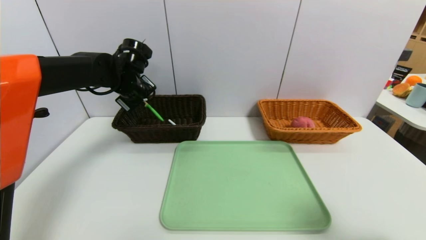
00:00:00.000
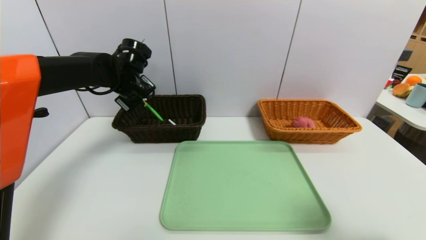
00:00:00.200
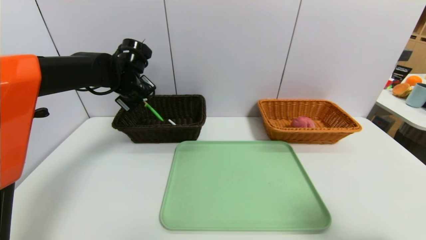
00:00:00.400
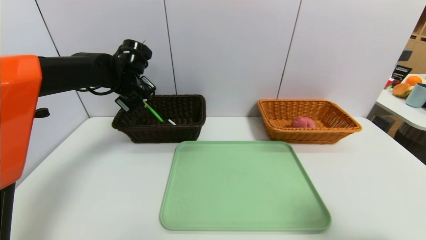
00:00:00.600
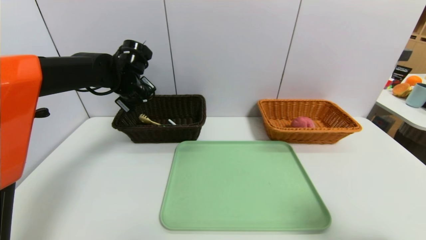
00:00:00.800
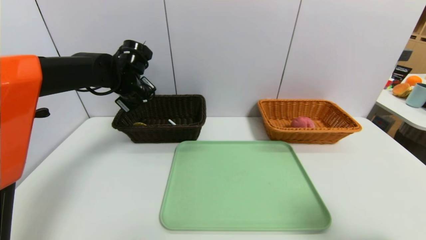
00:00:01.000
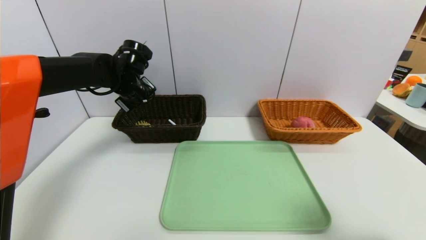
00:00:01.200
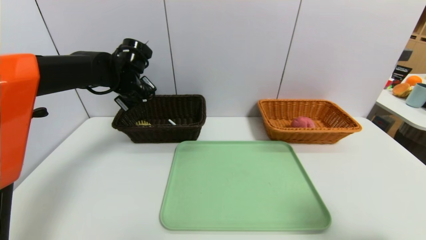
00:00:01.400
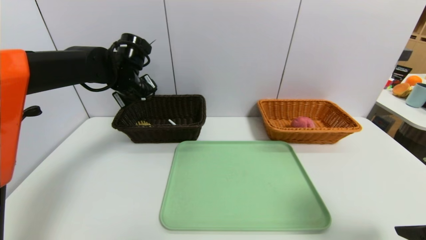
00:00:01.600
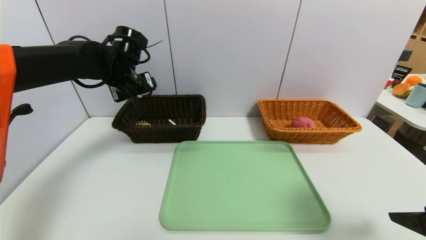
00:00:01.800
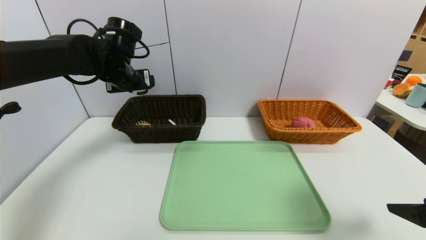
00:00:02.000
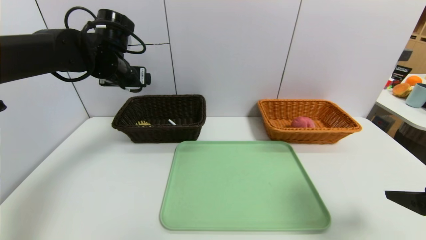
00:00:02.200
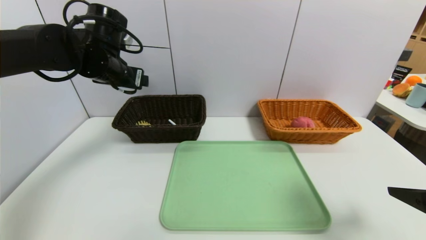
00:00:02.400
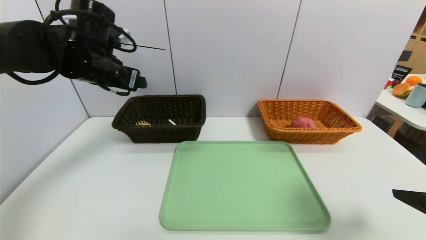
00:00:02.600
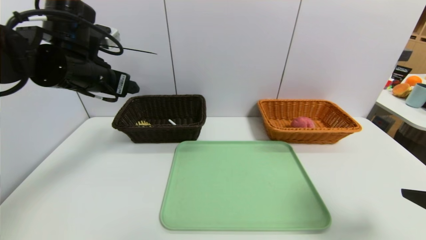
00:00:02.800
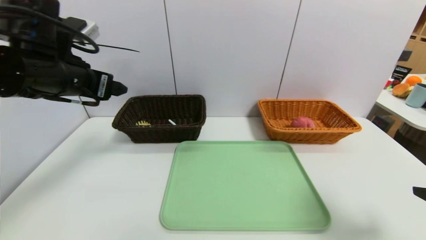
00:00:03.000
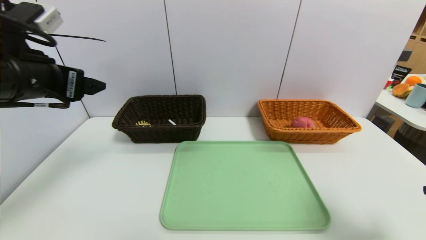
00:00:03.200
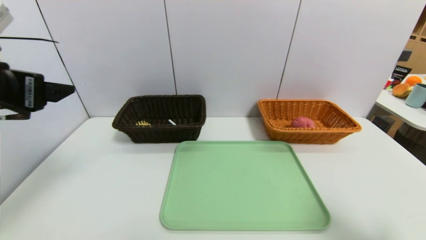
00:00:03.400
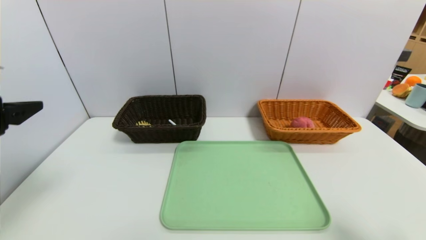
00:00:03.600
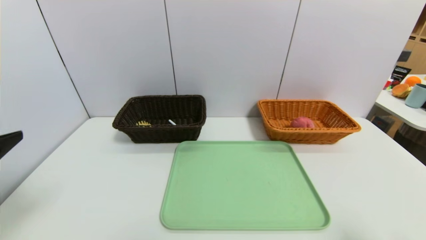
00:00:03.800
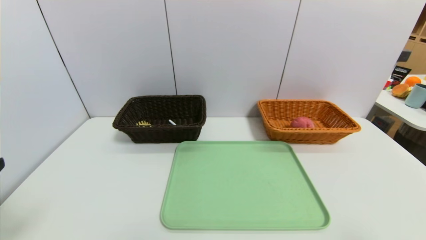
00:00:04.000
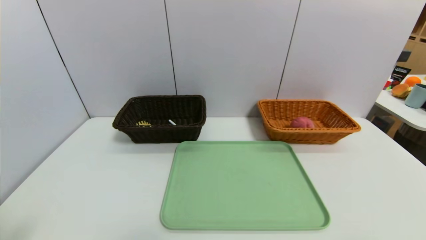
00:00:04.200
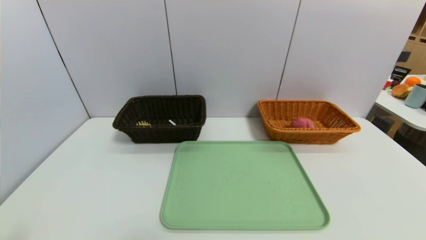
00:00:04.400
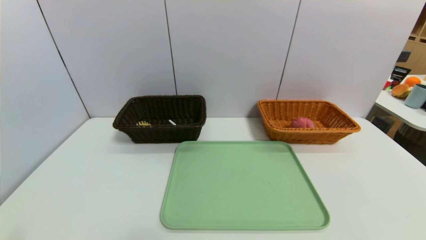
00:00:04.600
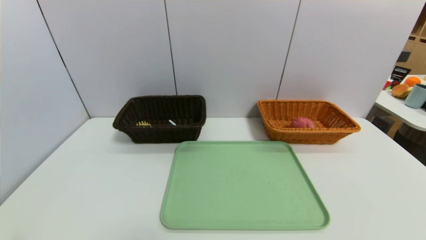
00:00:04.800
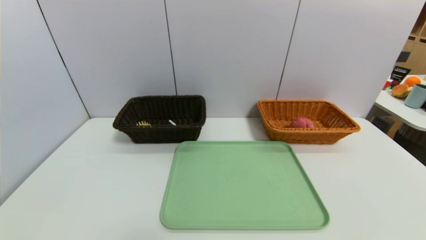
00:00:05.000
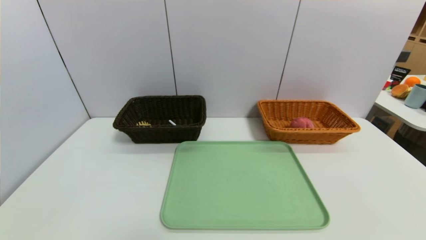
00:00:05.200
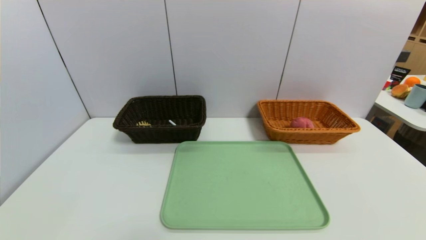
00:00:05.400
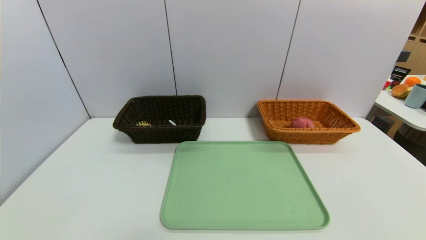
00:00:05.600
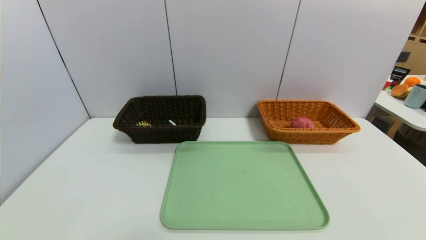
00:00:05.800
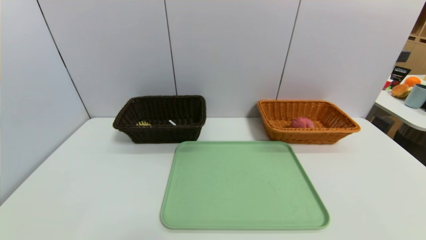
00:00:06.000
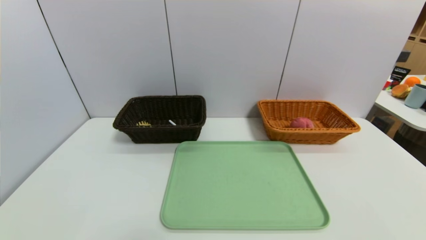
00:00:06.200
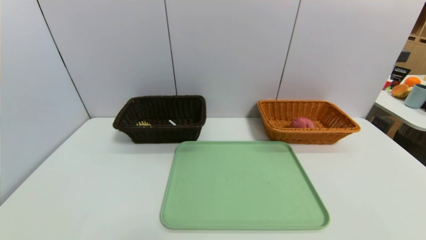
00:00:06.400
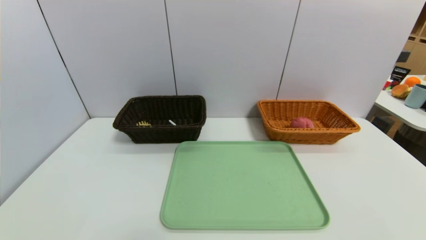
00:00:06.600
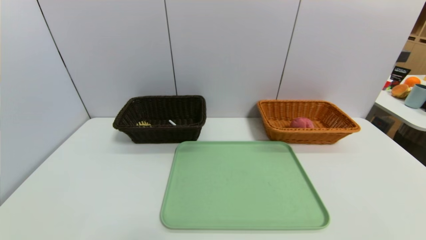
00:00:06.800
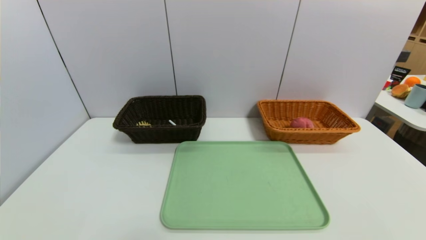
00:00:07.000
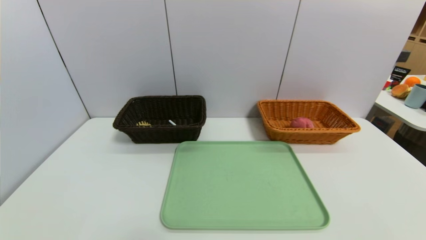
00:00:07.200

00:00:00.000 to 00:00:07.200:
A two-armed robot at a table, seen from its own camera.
Task of the whole recording: place the food in the right basket with the right gripper, and place the non food items in the left basket with the left gripper.
00:00:00.000 to 00:00:01.400: The left gripper opens its fingers.
00:00:01.400 to 00:00:02.800: The left gripper is displaced backward and upward by approximately 15 cm.
00:00:02.800 to 00:00:04.400: The left gripper heads backward, covering some 30 cm. Meanwhile the right gripper travels backward by roughly 15 cm.
